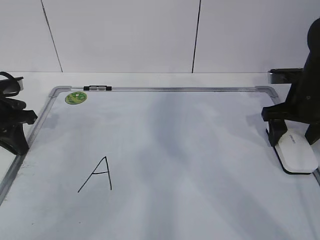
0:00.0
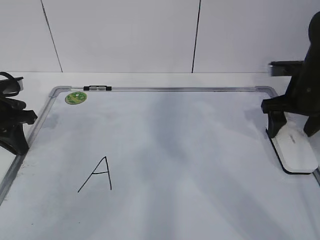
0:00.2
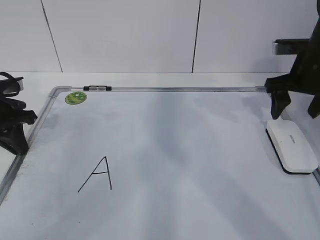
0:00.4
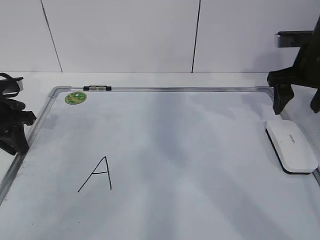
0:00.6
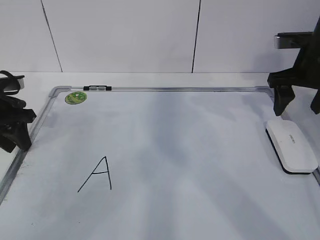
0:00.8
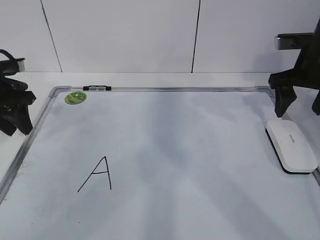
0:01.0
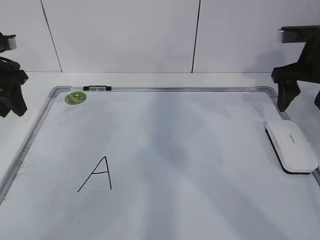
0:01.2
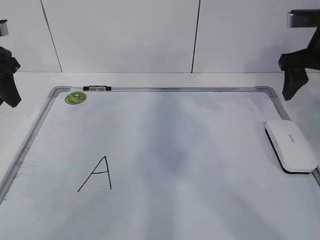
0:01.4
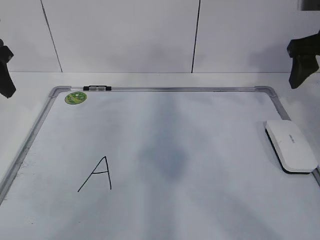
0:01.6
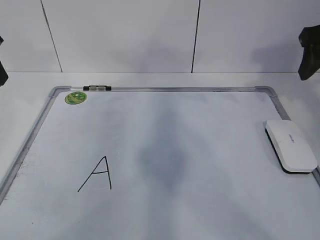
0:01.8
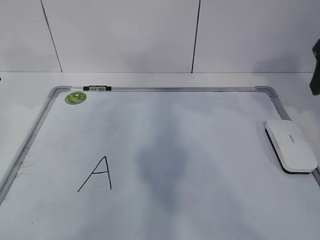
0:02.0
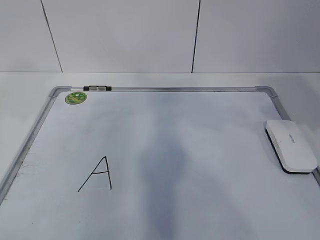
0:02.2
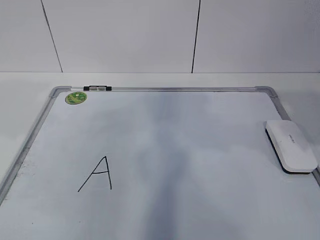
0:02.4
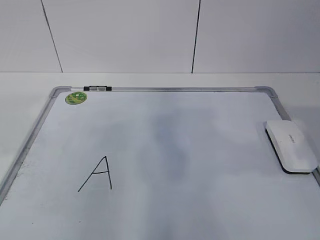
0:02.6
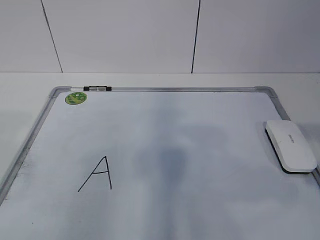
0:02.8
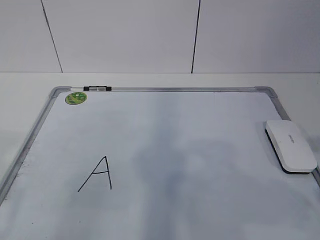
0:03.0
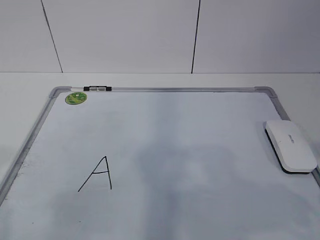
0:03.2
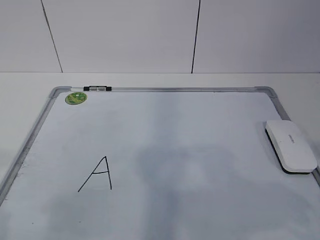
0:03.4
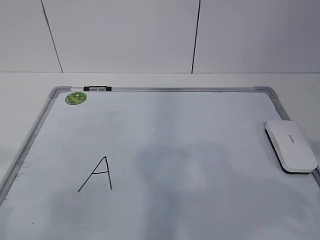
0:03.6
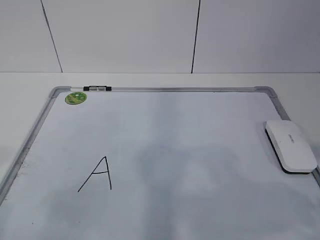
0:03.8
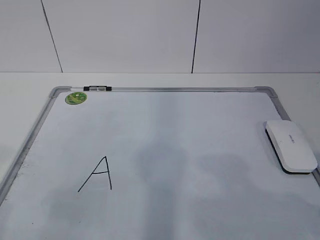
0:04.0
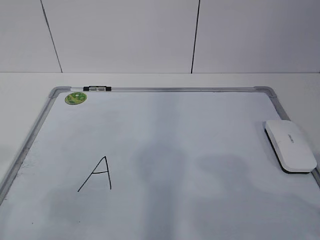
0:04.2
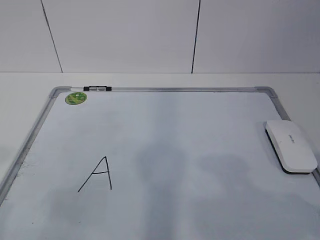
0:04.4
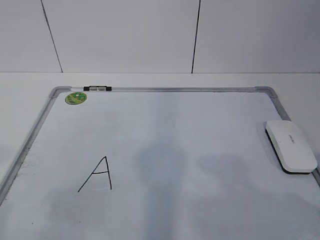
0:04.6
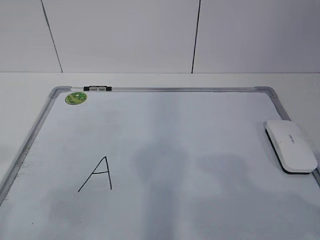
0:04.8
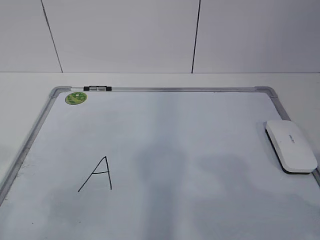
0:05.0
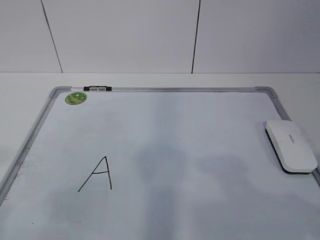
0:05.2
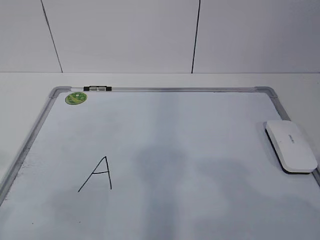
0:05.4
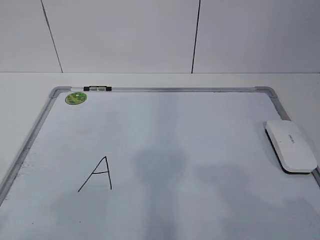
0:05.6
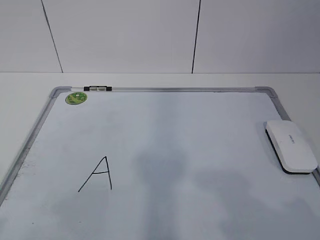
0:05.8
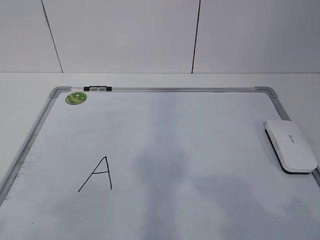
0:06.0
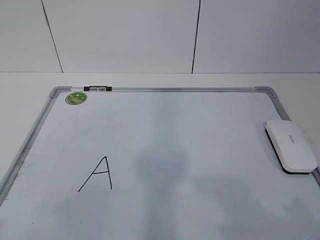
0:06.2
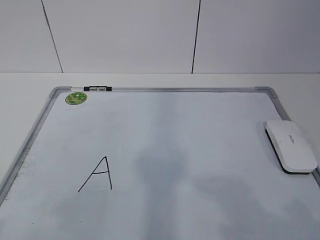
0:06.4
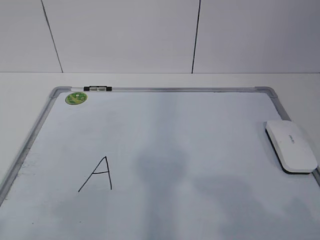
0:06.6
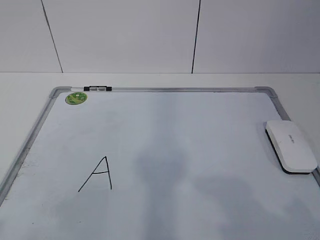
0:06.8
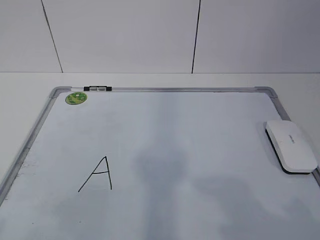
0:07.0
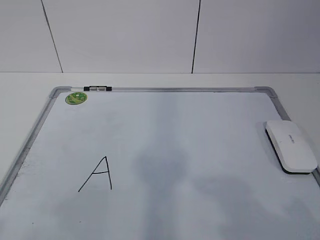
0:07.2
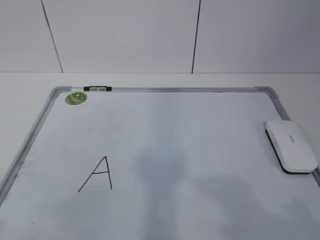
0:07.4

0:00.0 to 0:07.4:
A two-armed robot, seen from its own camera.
Task of the whole recording: pick up the eraser on the blackboard and erase the letter "a".
0:00.0 to 0:01.4: The grippers both shift upward by roughly 10 cm. The left gripper opens its fingers.
0:01.4 to 0:03.0: Both grippers move backward, some 30 cm. The right gripper closes up.
0:06.0 to 0:07.4: Both grippers stay put.
